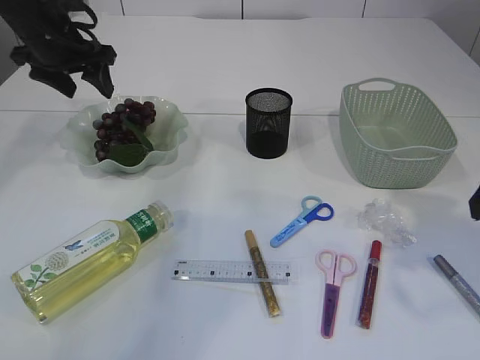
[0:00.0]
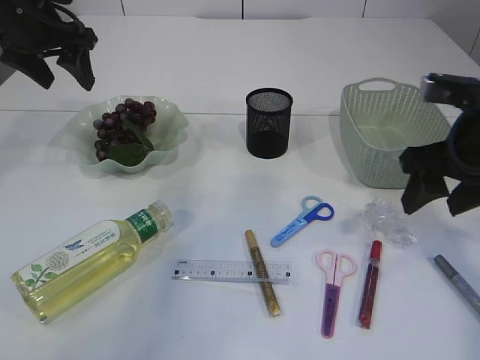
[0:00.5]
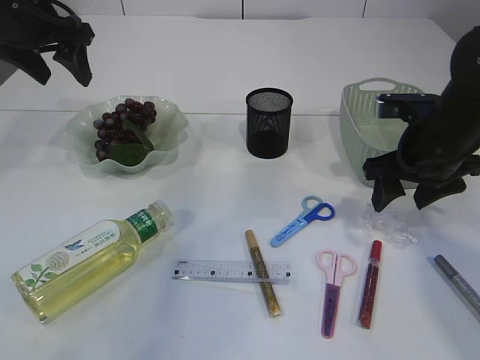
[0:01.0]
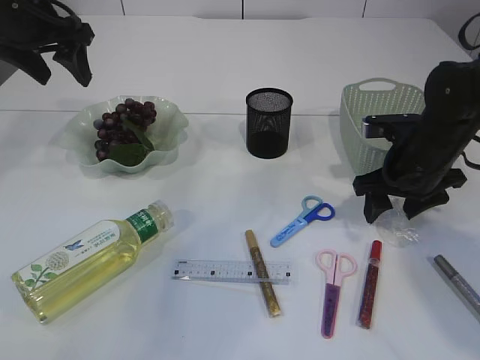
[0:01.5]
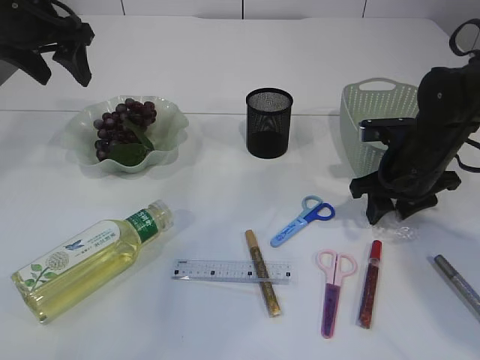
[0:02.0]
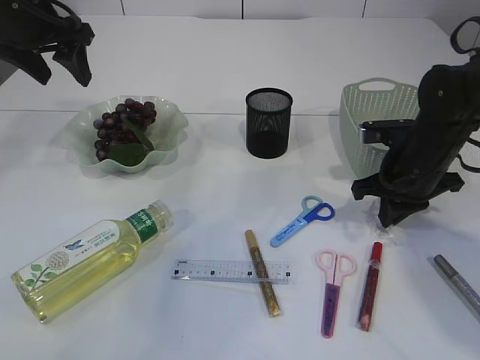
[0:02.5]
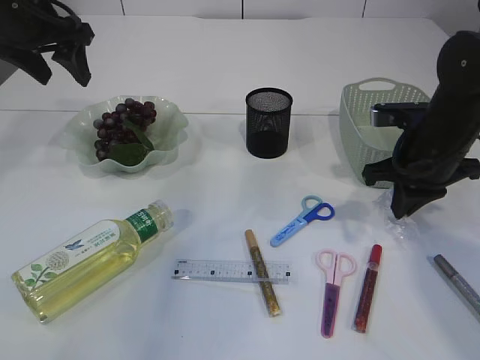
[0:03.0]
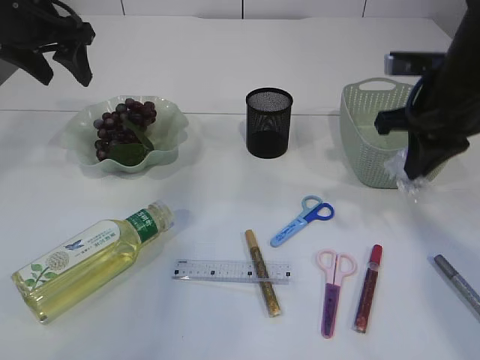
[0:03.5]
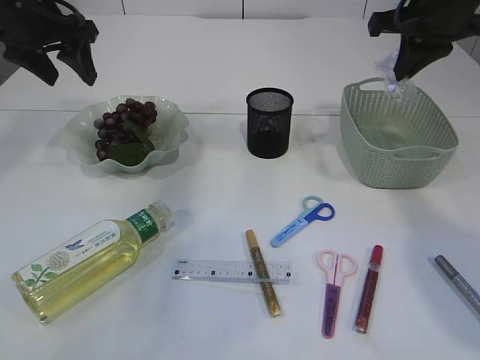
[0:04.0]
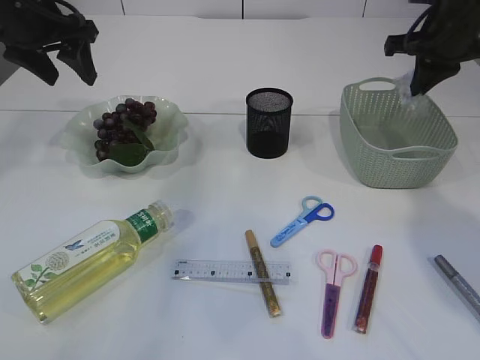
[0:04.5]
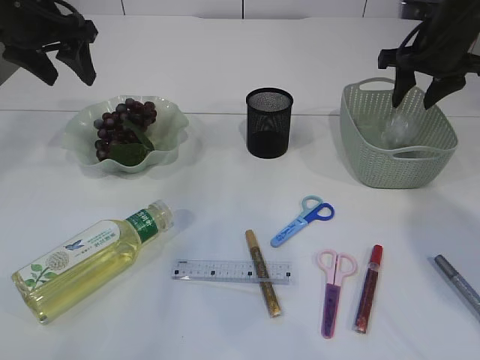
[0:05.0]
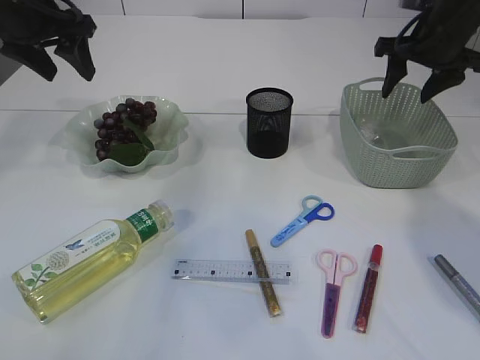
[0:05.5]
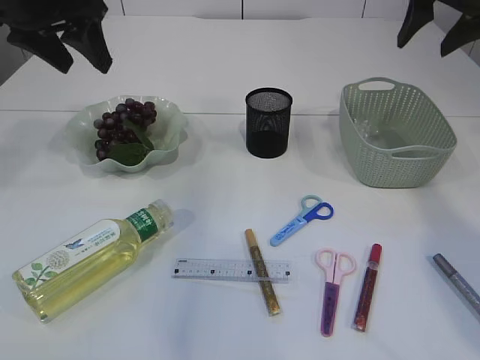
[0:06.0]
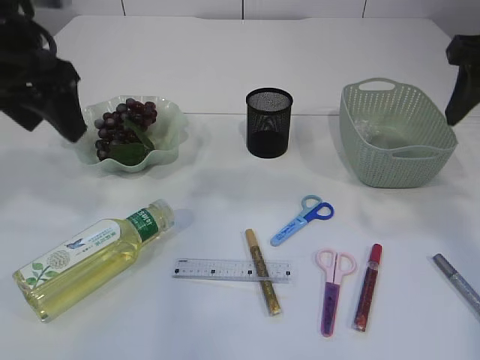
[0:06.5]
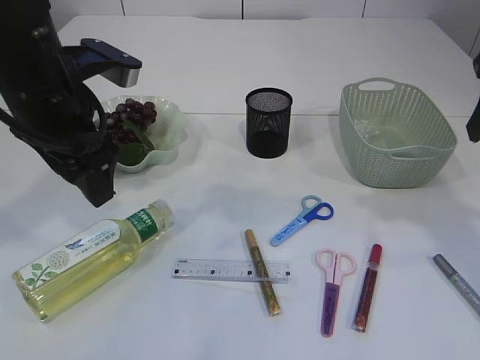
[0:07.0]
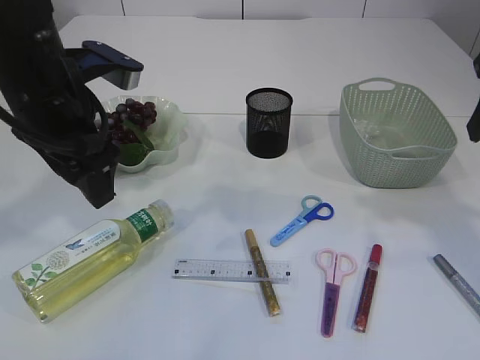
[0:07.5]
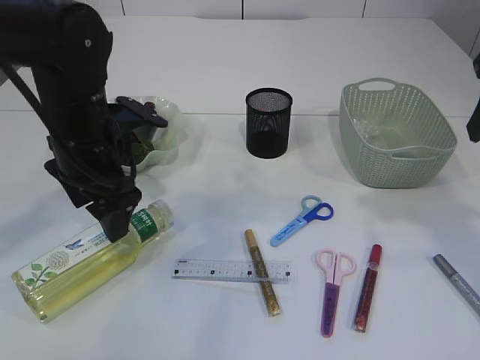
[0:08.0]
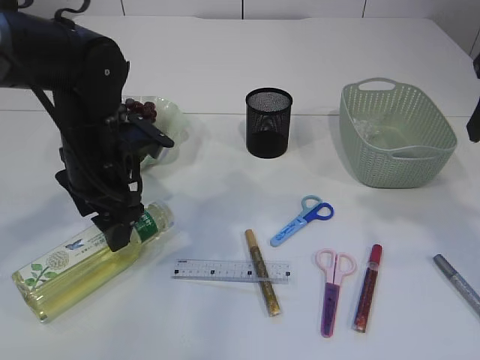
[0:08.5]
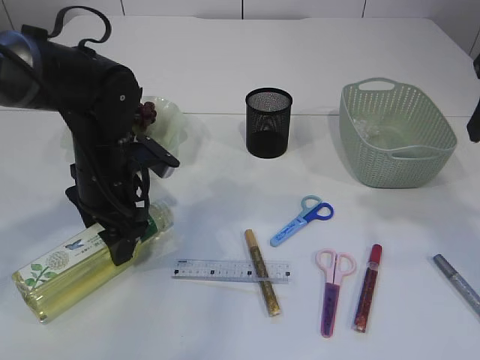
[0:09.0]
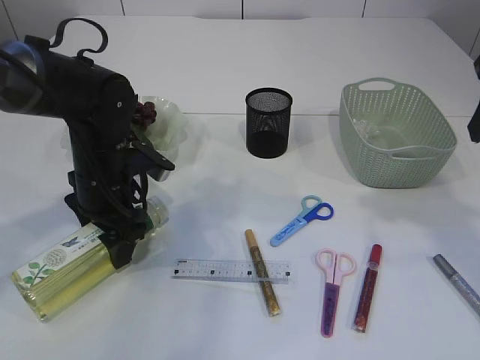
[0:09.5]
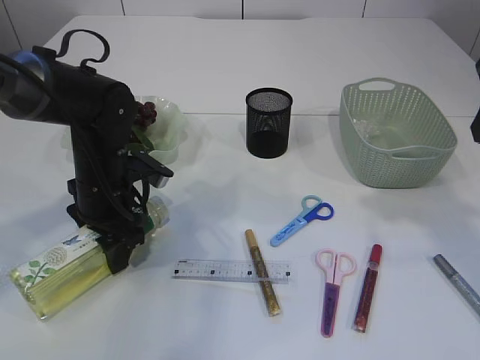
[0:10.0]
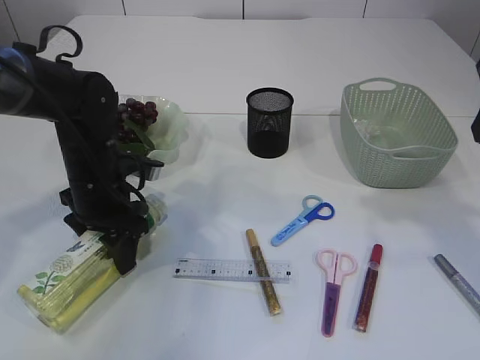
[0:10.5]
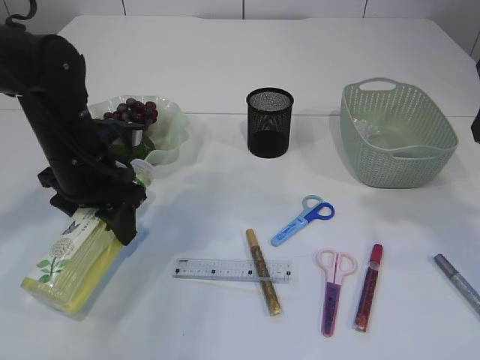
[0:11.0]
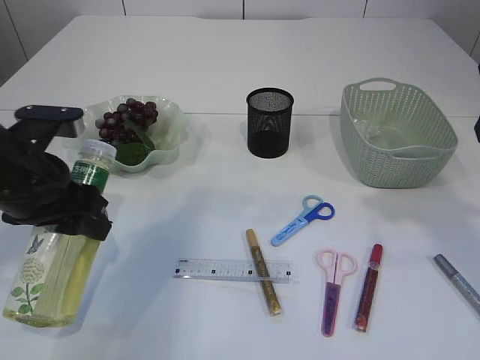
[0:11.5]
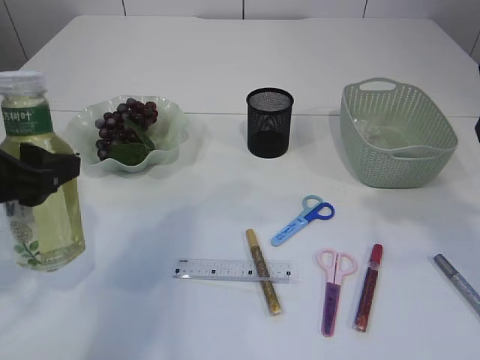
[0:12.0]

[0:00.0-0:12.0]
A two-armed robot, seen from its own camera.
Step, 0:00.0 to 0:03.0: Pick up the plastic.
Step, 0:03.5 to 0:05.0: Place the plastic in the basket.
Step, 0:05.5 to 0:11.5: Pick up the bottle with the left arm.
0:00.0 to 0:02.0: The right gripper goes approximately 20 cm forward and downward; the left gripper changes place by about 5 cm.
0:02.0 to 0:04.0: The right gripper shifts approximately 20 cm upward, and closes up.
0:04.0 to 0:06.0: The right gripper reaches approximately 5 cm downward, then returns, and opens; the left gripper moves about 5 cm.
0:06.0 to 0:08.0: The left gripper heads downward, backward and to the right, covering approximately 15 cm; the right gripper shifts some 15 cm backward.
0:08.0 to 0:10.0: The left gripper shifts about 10 cm downward.
0:10.0 to 0:12.0: The left gripper goes some 20 cm backward, upward and to the left.

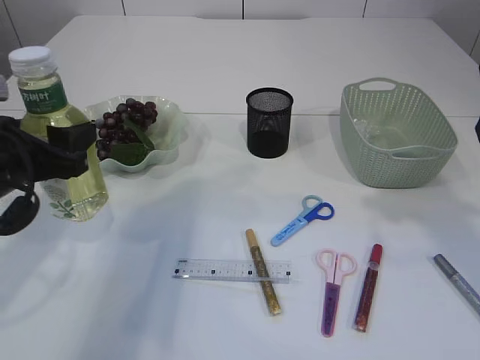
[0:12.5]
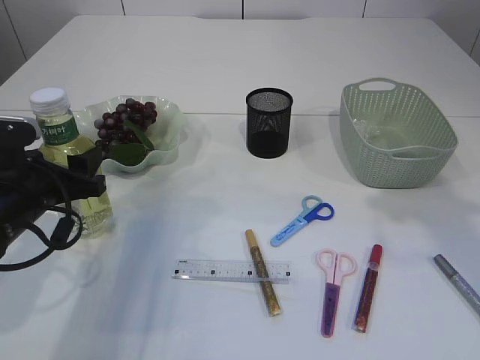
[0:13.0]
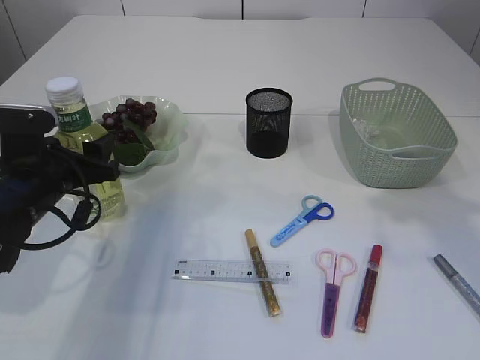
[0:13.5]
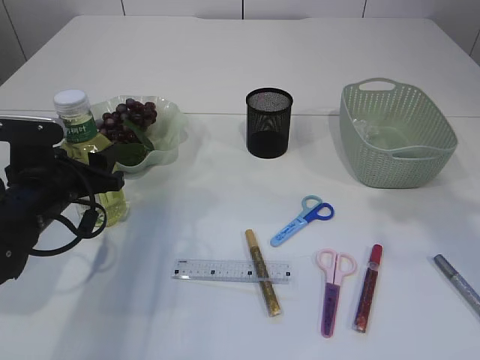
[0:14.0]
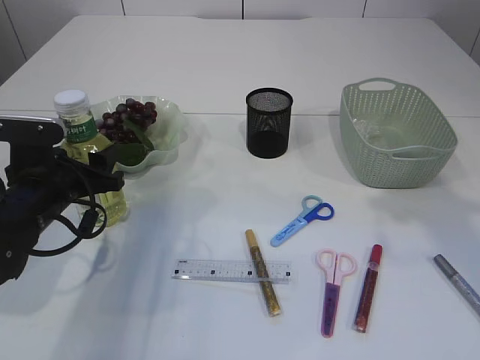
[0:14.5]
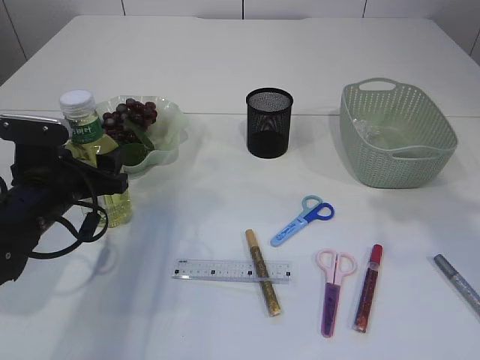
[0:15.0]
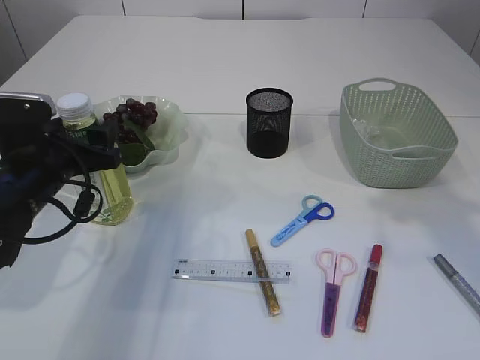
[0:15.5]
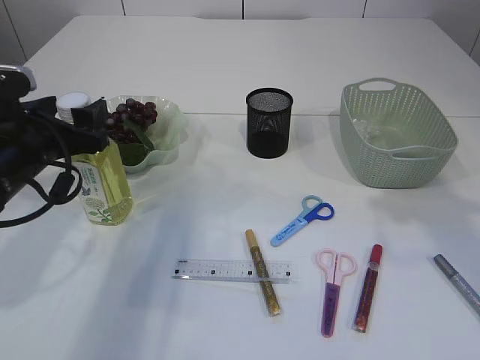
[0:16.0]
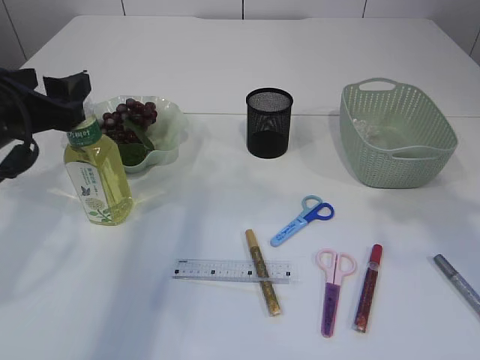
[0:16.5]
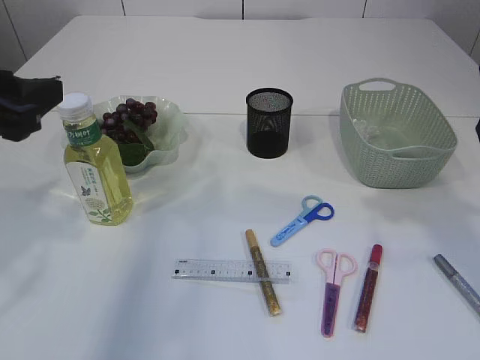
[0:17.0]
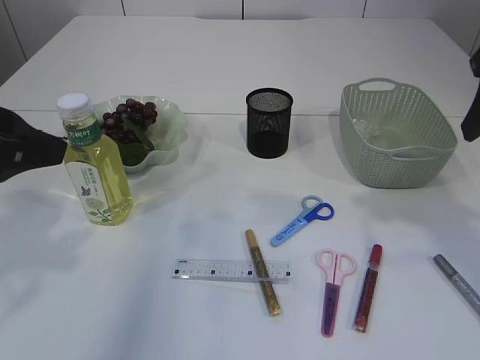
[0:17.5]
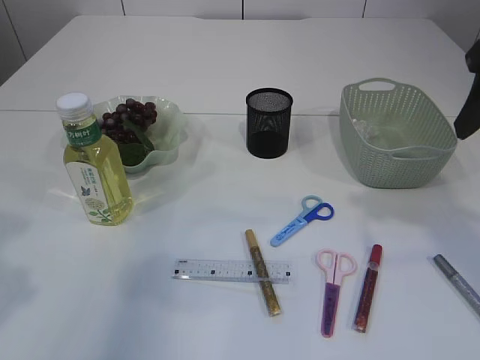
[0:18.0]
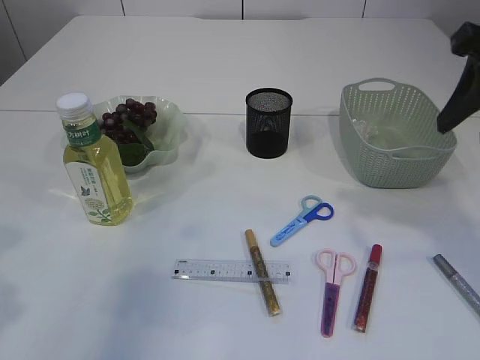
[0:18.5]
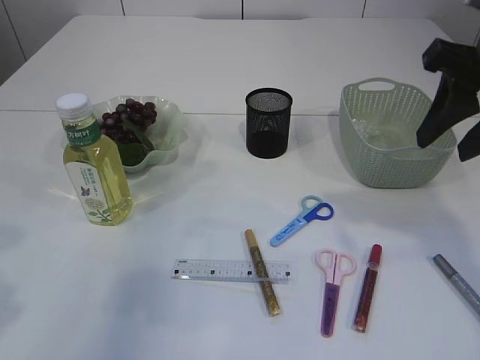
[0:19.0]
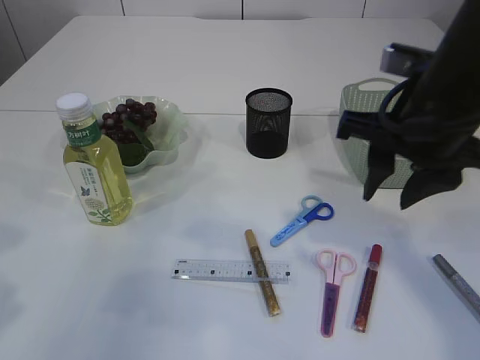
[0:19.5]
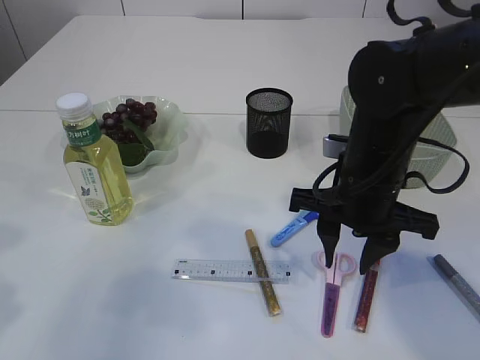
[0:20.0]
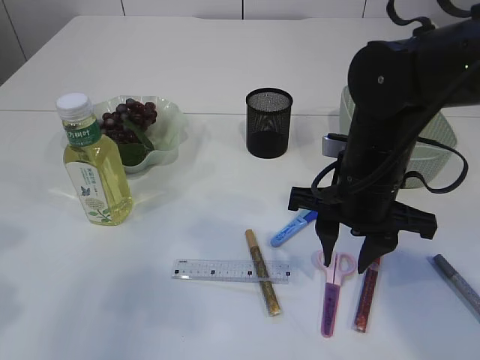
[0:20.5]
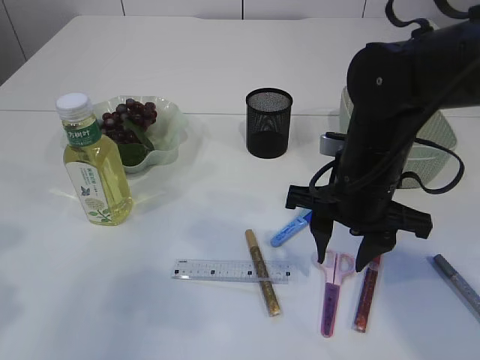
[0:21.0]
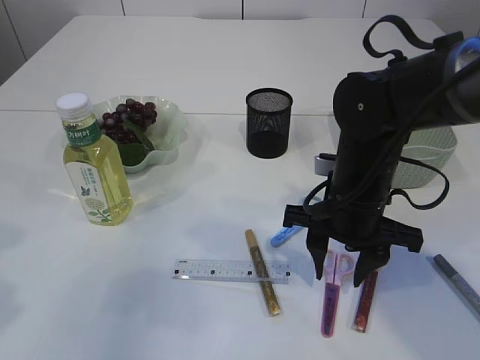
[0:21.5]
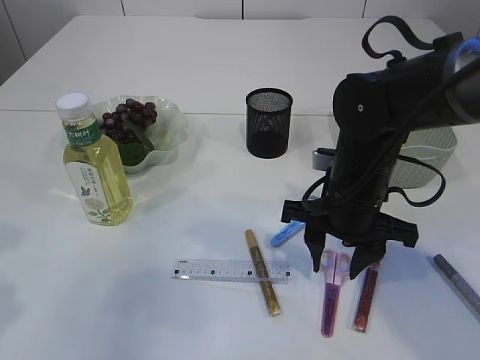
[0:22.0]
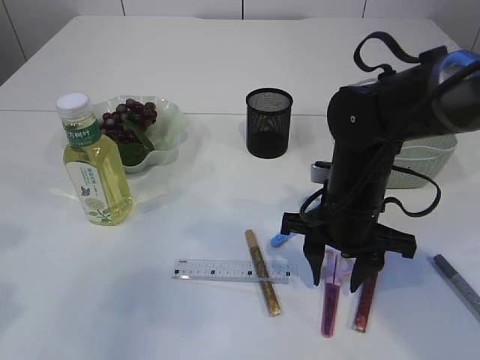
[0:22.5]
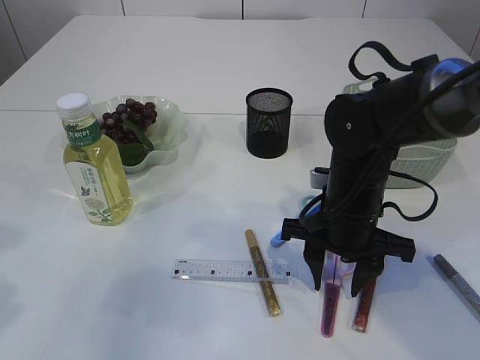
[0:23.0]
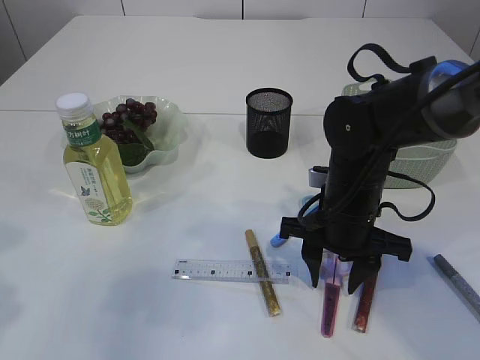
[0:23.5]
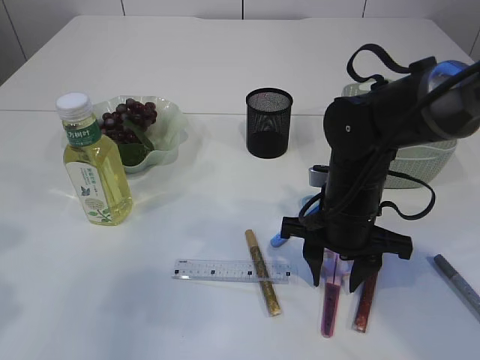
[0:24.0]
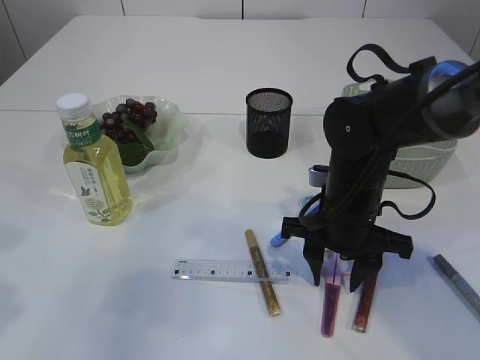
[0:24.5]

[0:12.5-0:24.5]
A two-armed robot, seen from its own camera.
Step, 0:12.5 to 0:17.0: Place the bottle.
0:12.5 to 0:14.5: The left gripper is displaced downward and forward by approximately 10 cm.
0:14.5 to 0:16.5: The left gripper heads upward, covering approximately 10 cm.
0:16.5 to 0:18.5: The left gripper is displaced backward and upward by about 15 cm.
0:18.5 to 0:20.5: The right gripper shifts about 20 cm downward and to the left.
0:20.5 to 0:22.5: The grippers stay close to where they were, moving slightly.
0:22.5 to 0:24.5: Both grippers stay about where they are.

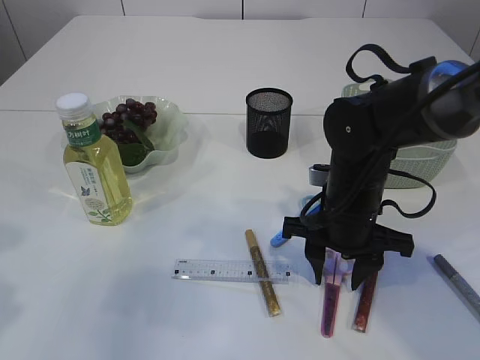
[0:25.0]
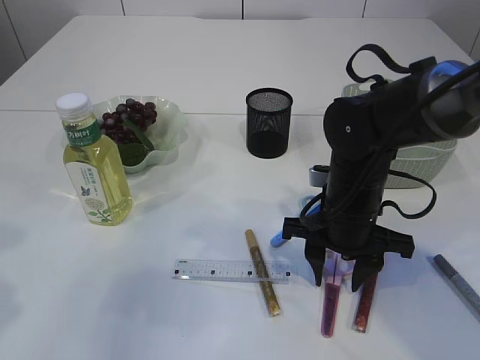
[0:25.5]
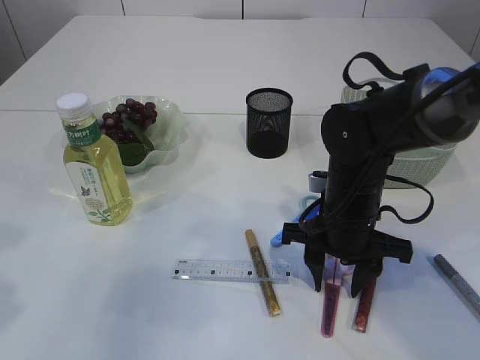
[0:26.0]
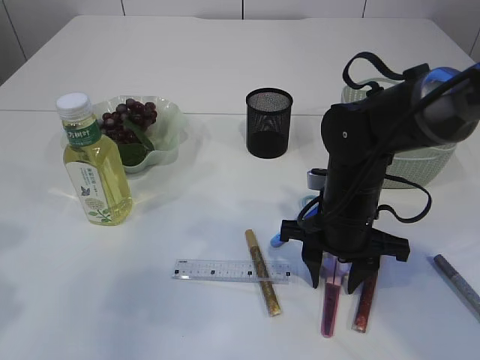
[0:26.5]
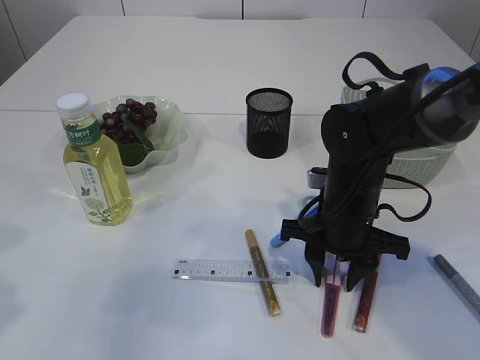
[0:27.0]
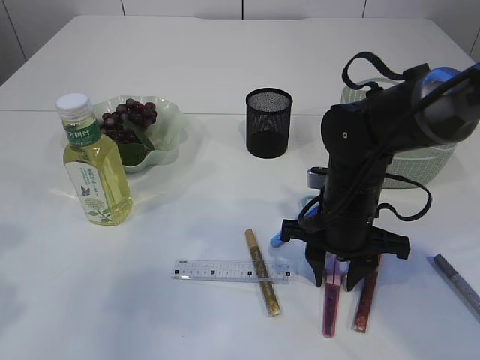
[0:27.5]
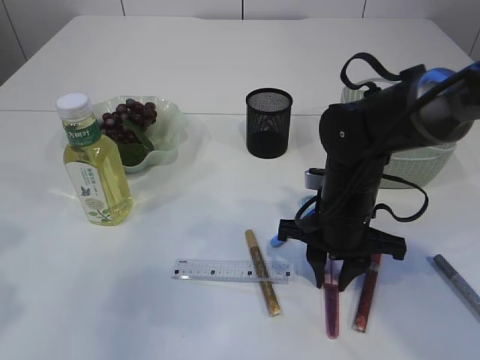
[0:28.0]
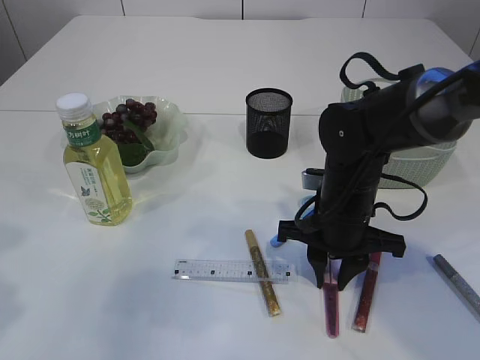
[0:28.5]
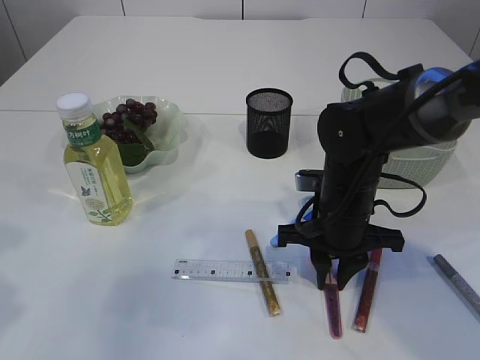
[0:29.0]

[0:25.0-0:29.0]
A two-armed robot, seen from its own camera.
0:25.0 to 0:27.0: Both grippers stay put.
0:27.0 to 0:29.0: There are only small adjustments of the grippers.
